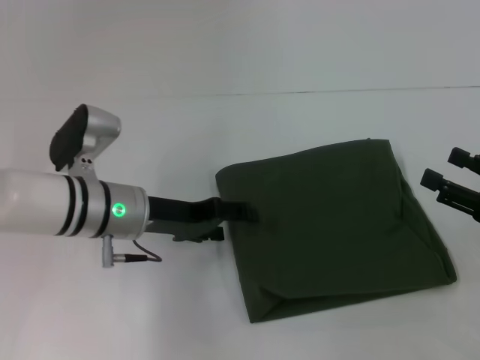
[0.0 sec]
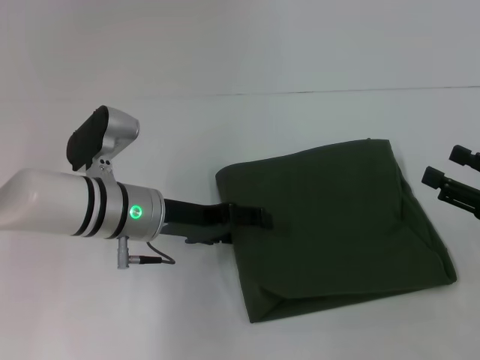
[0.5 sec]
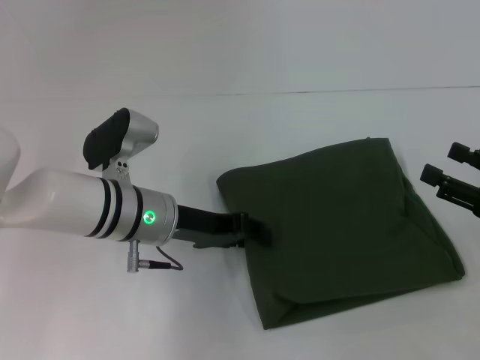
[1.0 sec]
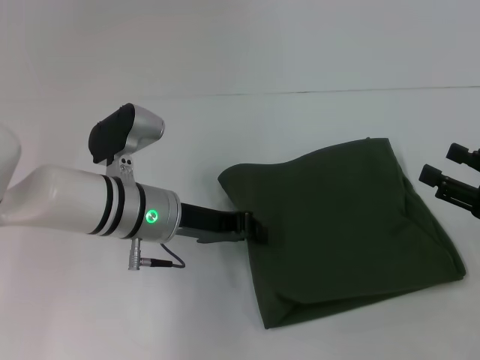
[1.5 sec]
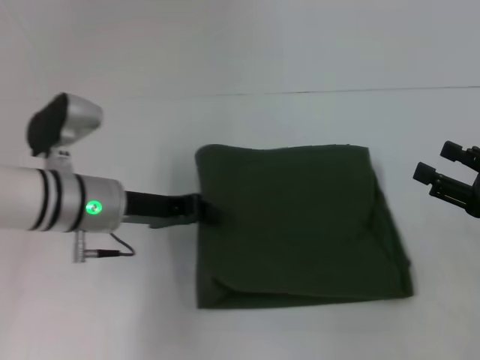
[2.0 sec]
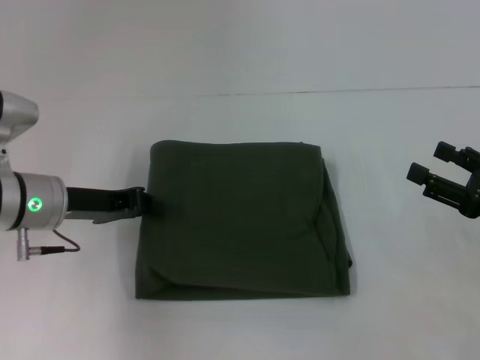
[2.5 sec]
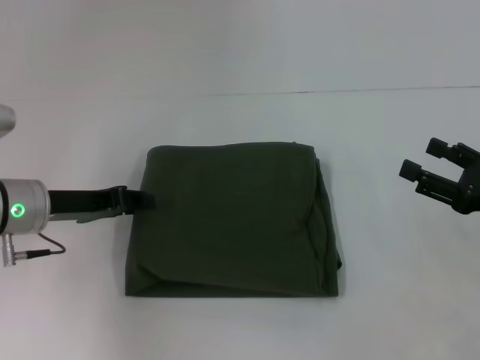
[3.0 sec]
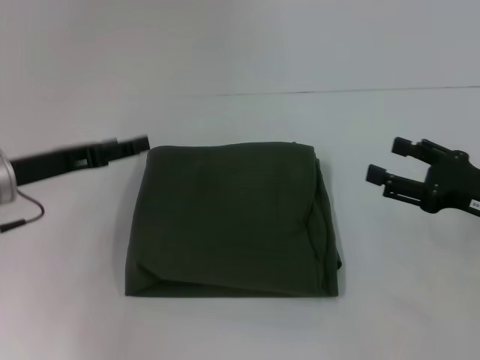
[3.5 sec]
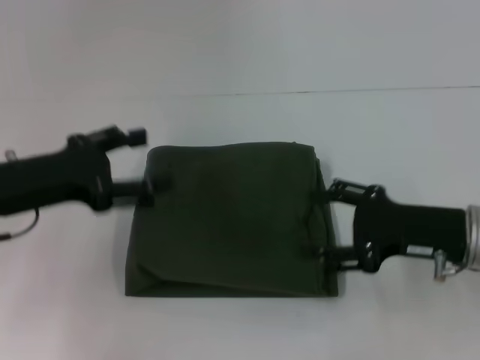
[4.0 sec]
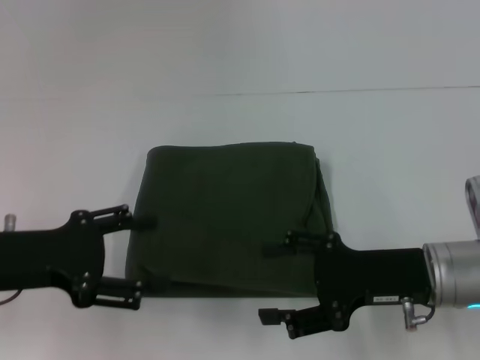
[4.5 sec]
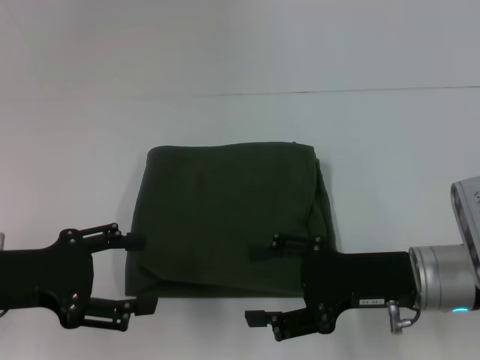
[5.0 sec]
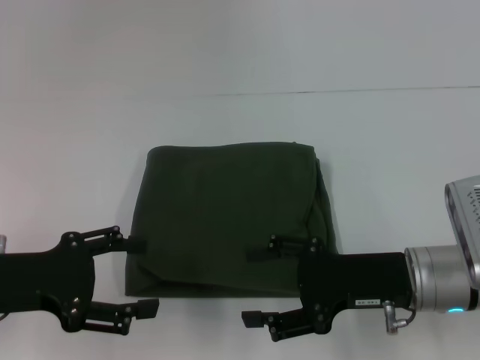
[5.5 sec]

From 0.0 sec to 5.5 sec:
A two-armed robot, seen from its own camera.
From 0.0 sec to 2.0 sec: The left gripper closes up.
From 2.0 sec to 3.5 sec: The left gripper is displaced to the left by about 10 cm, and opens up.
From 3.5 sec to 5.5 sec: The left gripper travels backward by roughly 10 cm; the right gripper moves to the left, roughly 10 cm.

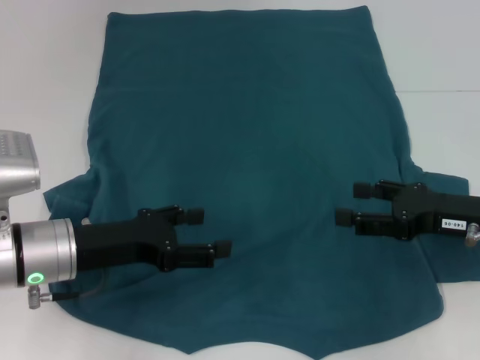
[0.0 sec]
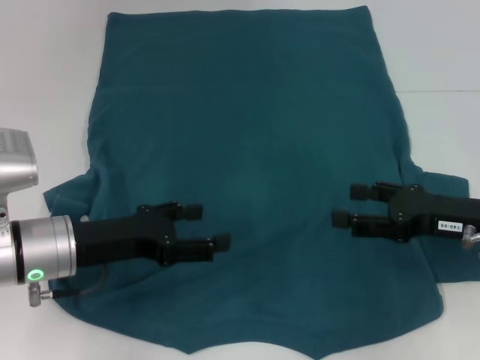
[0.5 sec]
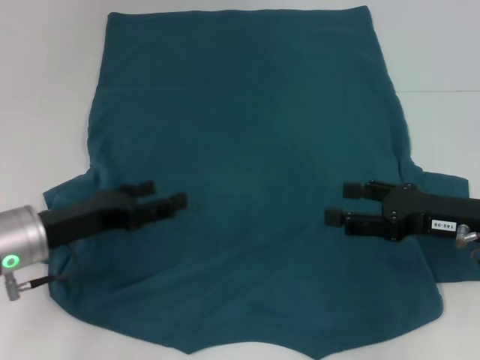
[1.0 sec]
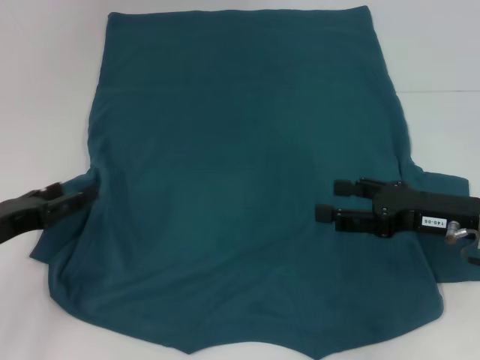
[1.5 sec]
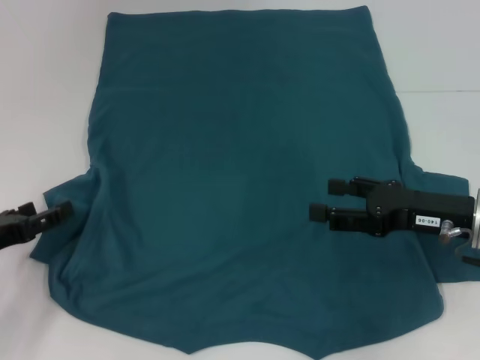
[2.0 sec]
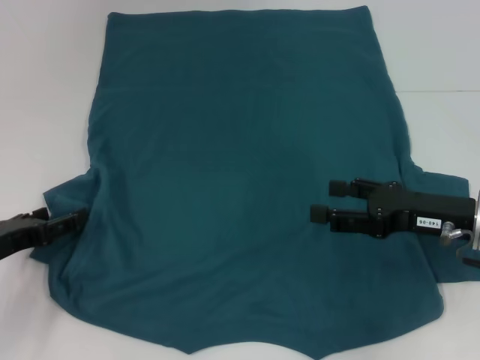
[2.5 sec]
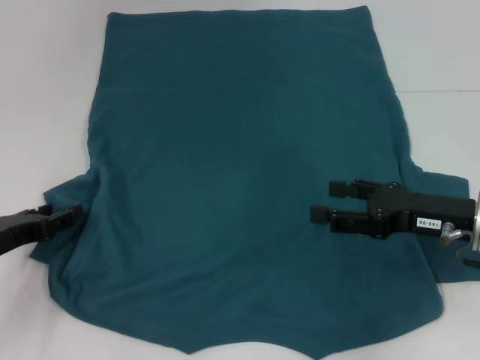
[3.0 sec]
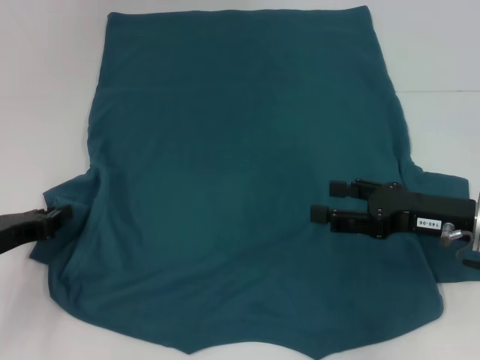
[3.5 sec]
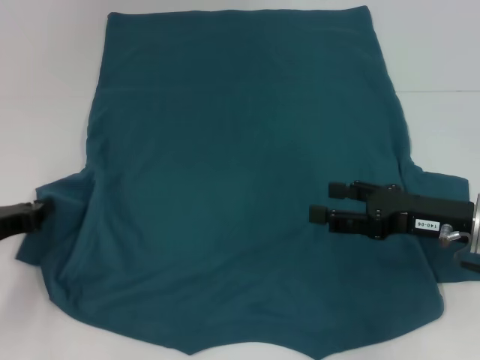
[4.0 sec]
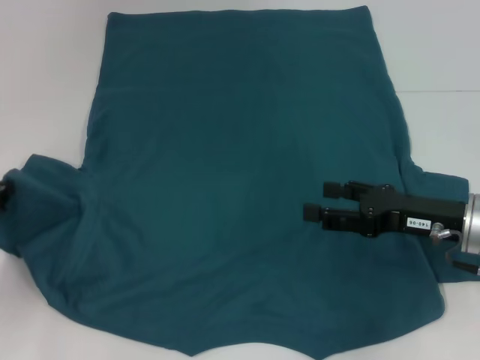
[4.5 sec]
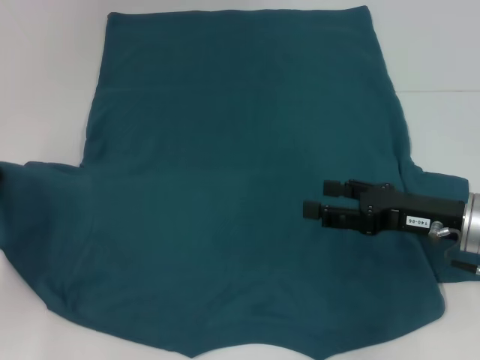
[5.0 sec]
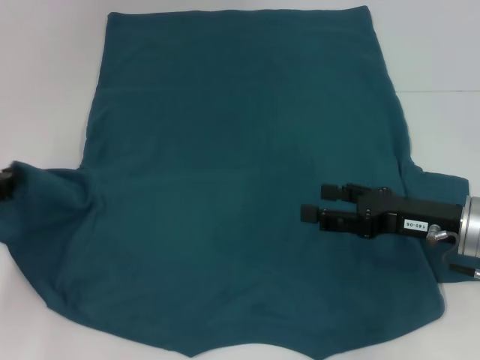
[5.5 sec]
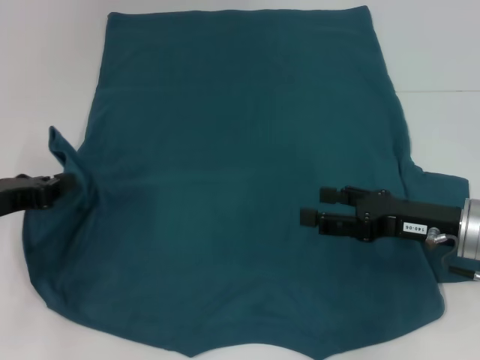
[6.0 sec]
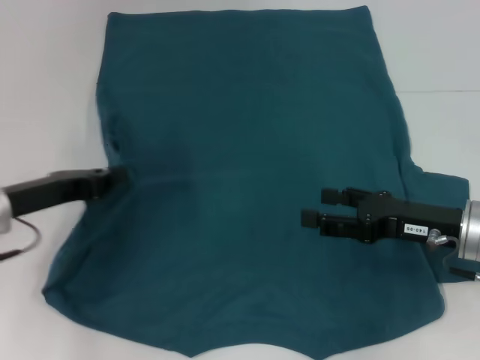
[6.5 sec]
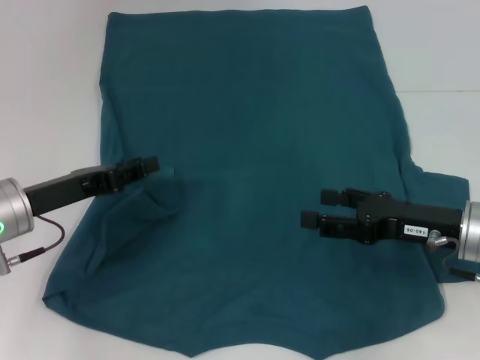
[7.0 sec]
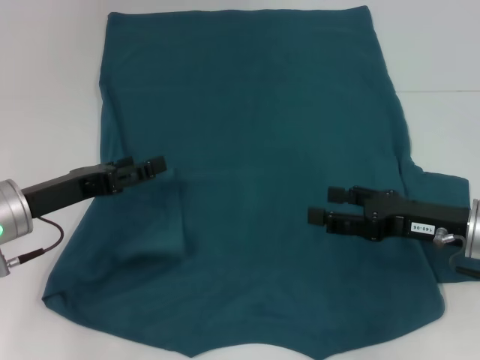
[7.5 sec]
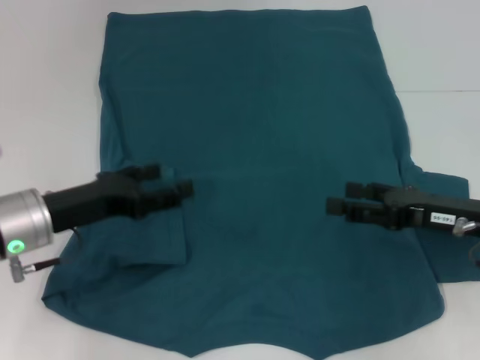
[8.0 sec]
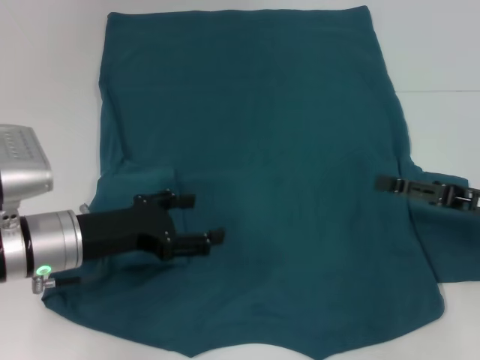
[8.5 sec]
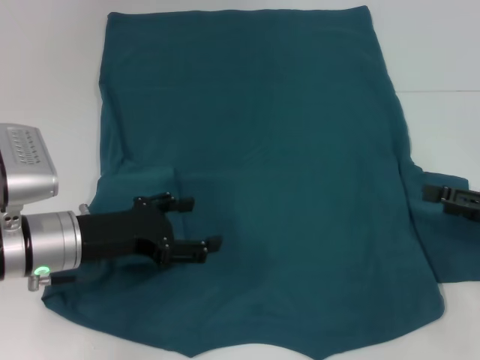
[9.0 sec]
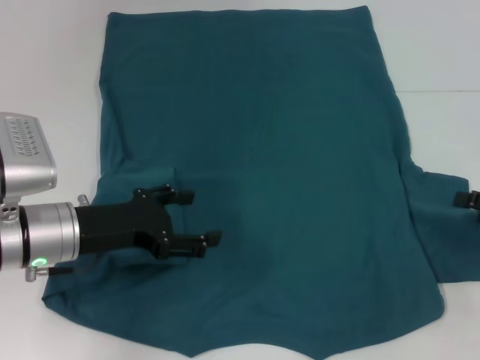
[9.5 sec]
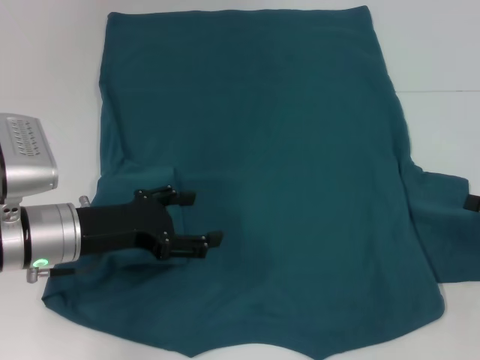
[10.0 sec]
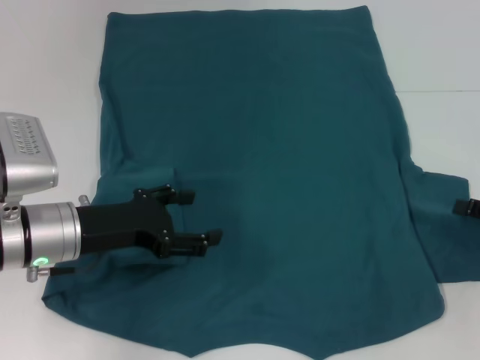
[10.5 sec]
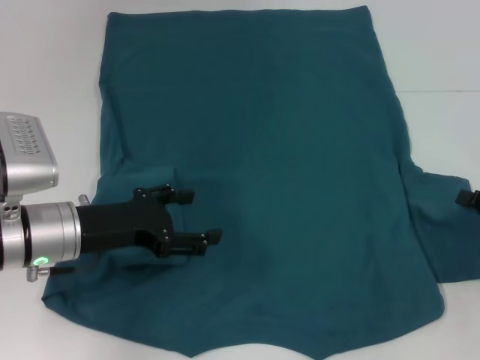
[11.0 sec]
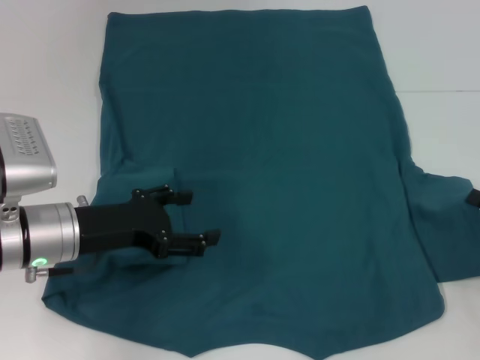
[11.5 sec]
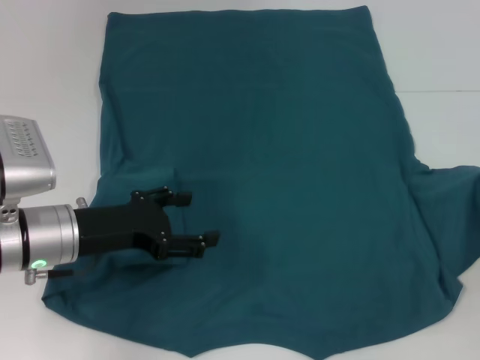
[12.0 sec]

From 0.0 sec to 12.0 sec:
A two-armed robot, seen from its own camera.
Step, from 0.0 sec to 7.5 sec: Fold the bottom left sleeve with your left hand.
From 0.0 sec to 2.0 sec: The left gripper shifts some 10 cm to the left.
From 2.0 sec to 4.0 sec: The left gripper closes its fingers.
From 4.0 sec to 6.0 sec: The grippers stay close to where they were, moving slightly.
From 6.0 sec to 8.0 sec: The left gripper is displaced to the right by about 10 cm, and opens up.
From 8.0 sec to 10.0 sec: The right gripper moves to the right, approximately 10 cm.
From 10.0 sec to 12.0 sec: The right gripper closes its fingers.

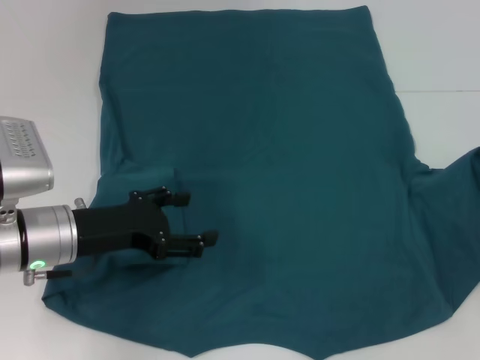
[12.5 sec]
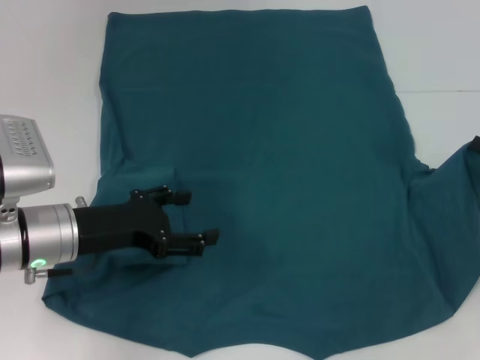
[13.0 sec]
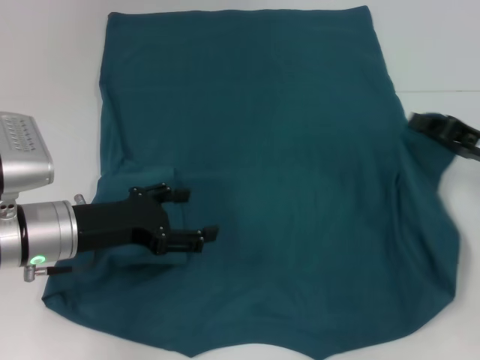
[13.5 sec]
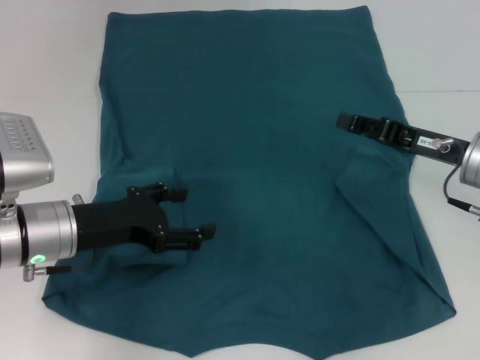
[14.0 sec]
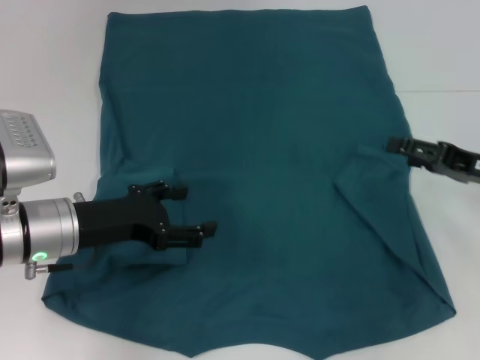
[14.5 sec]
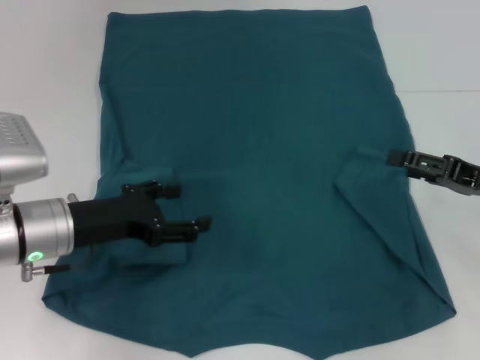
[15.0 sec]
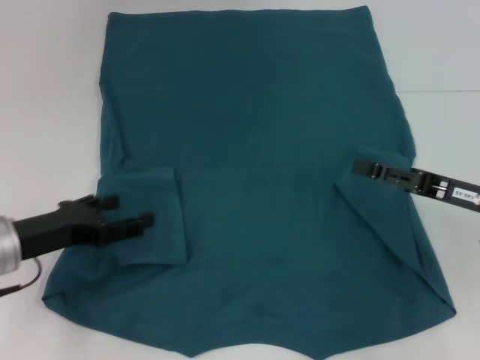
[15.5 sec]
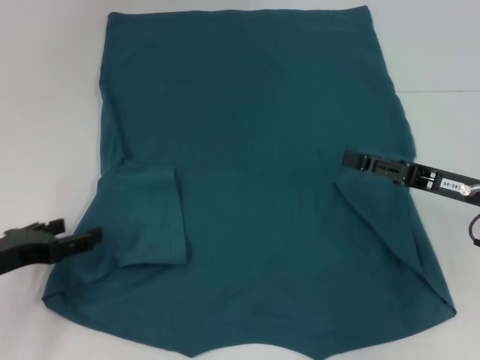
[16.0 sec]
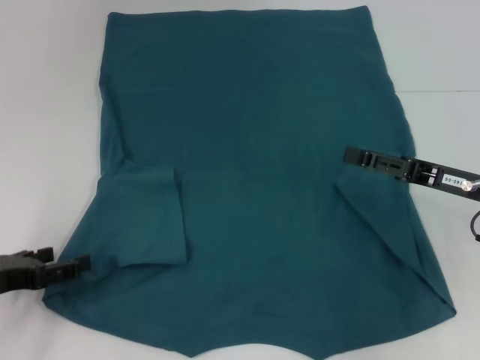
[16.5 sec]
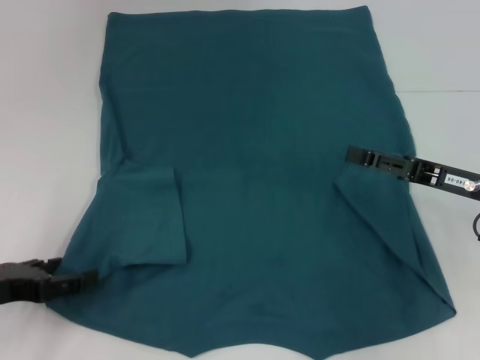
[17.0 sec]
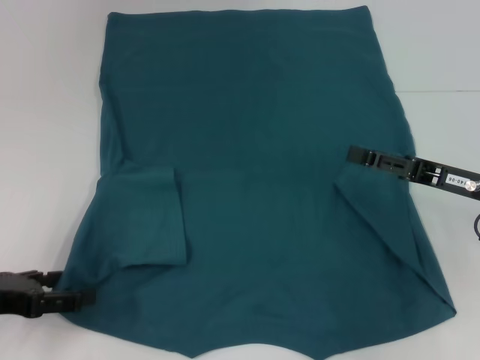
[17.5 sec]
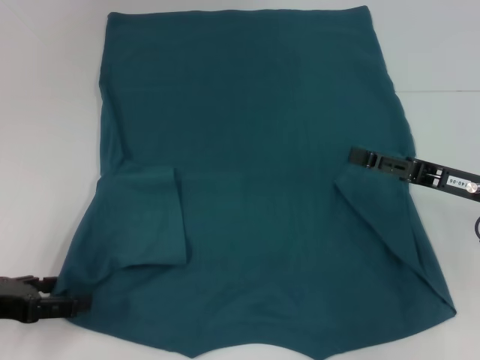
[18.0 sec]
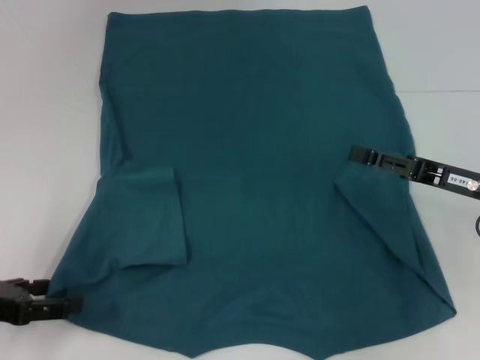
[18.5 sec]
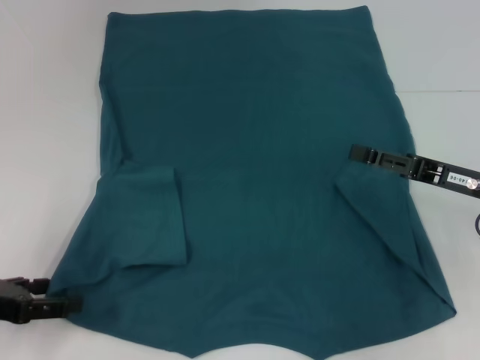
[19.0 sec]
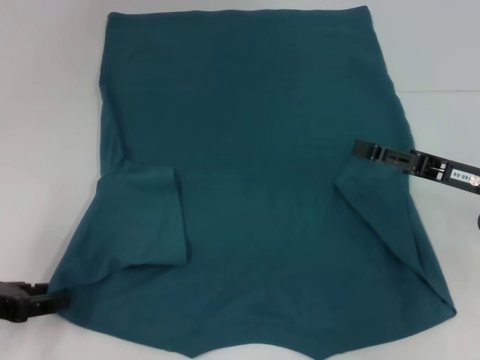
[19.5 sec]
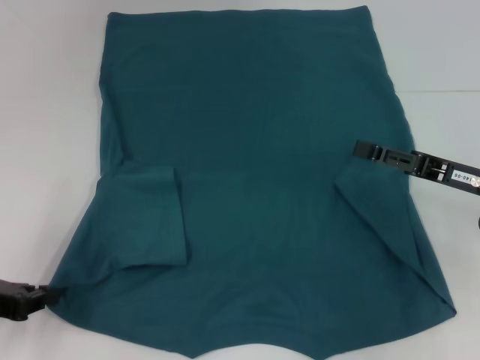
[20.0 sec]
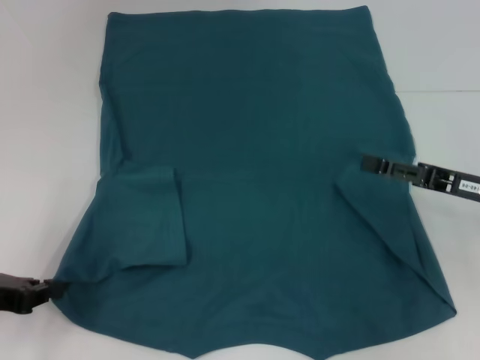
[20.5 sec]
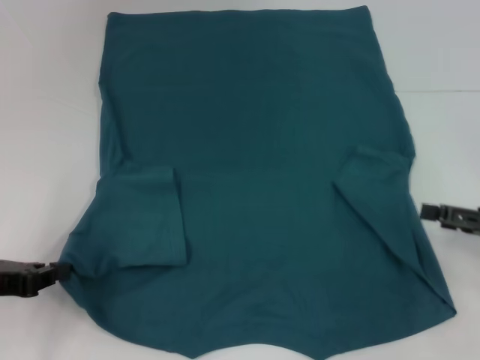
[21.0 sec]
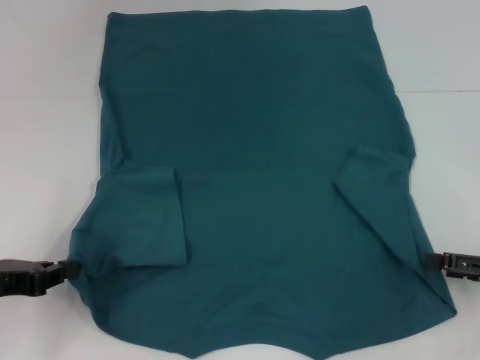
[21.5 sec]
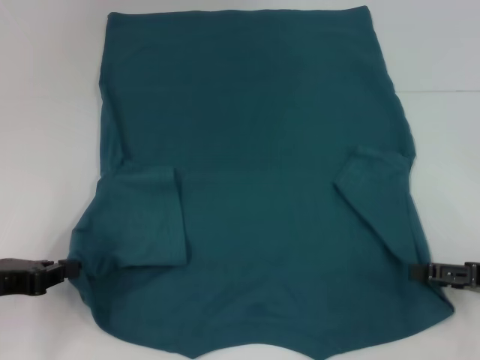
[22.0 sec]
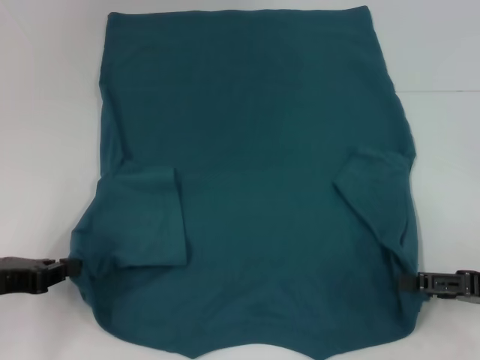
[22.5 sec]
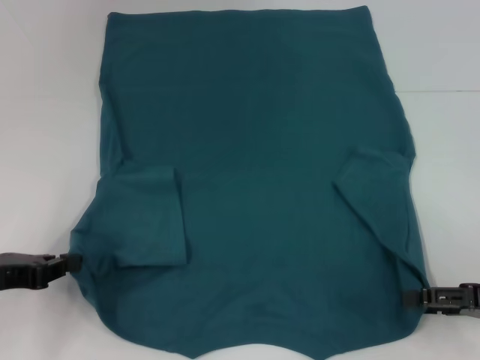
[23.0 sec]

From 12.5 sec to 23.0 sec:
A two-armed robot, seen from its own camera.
Step, from 12.5 sec to 16.5 sec: Fold the bottom right sleeve to the right.
Step, from 17.0 sec to 20.0 sec: Grab the bottom left corner with your left hand.
From 12.5 sec to 14.5 sec: The right gripper is displaced to the left by about 5 cm, and opens.
From 14.5 sec to 16.5 sec: The left gripper shifts about 15 cm to the left and backward.
From 16.5 sec to 19.0 sec: The grippers make only small movements.
From 19.0 sec to 21.0 sec: The left gripper closes its fingers; the right gripper is displaced to the right by some 5 cm.
From 21.0 sec to 23.0 sec: There are only small adjustments of the grippers.
